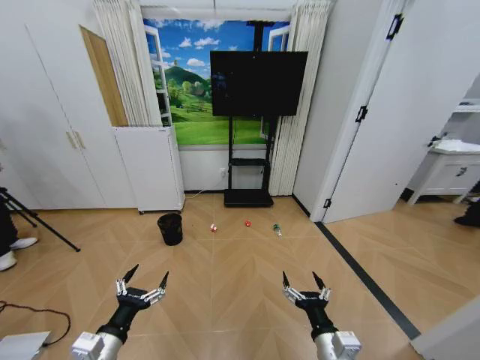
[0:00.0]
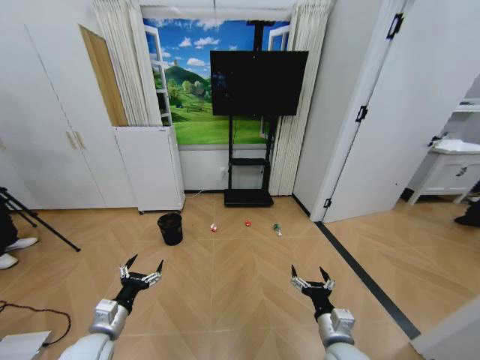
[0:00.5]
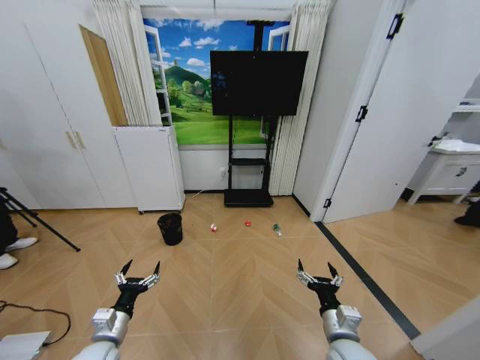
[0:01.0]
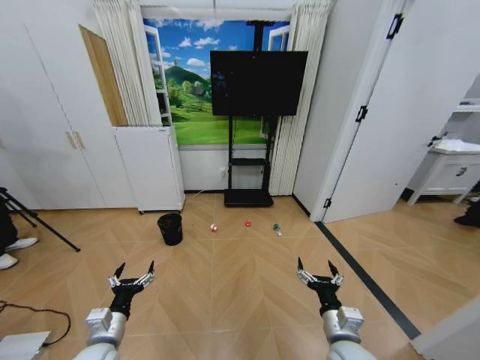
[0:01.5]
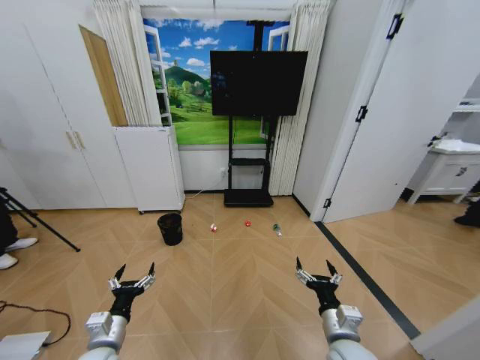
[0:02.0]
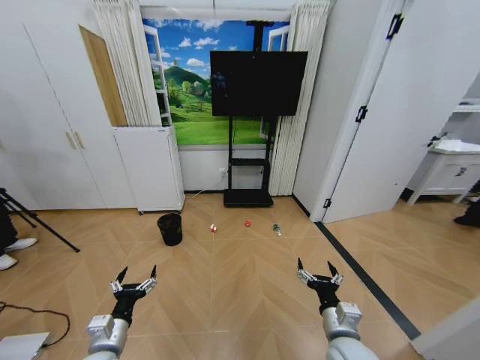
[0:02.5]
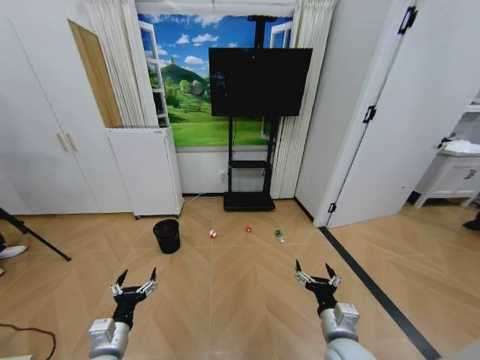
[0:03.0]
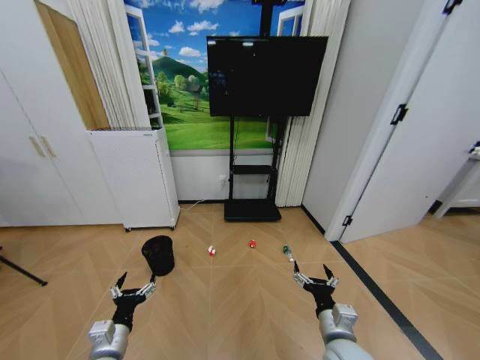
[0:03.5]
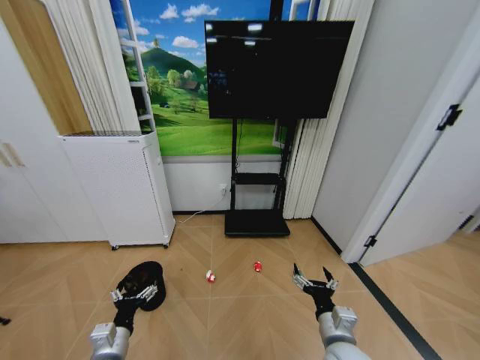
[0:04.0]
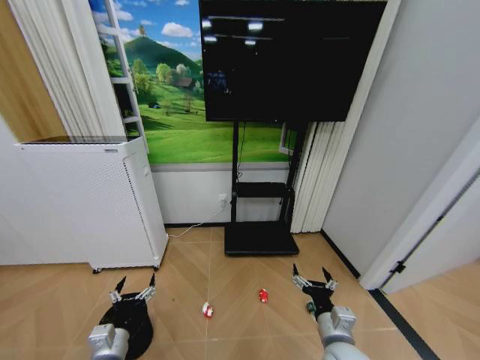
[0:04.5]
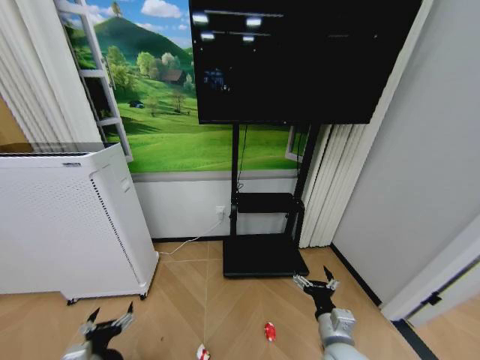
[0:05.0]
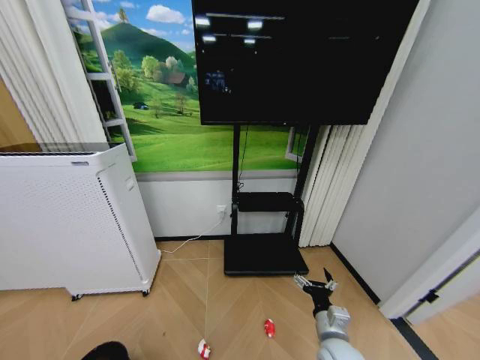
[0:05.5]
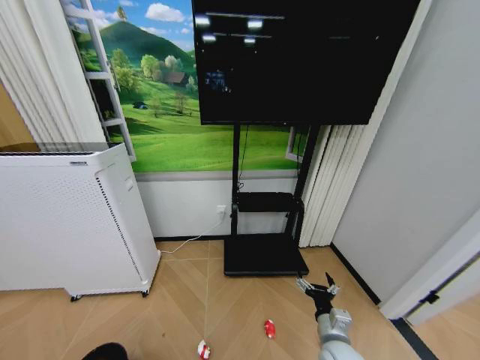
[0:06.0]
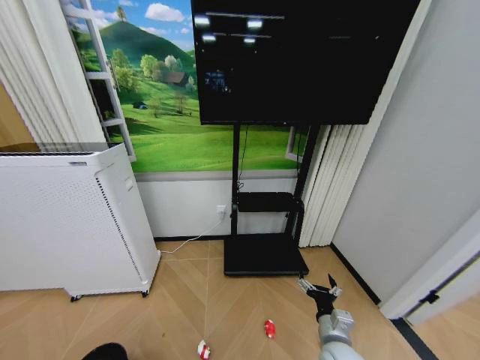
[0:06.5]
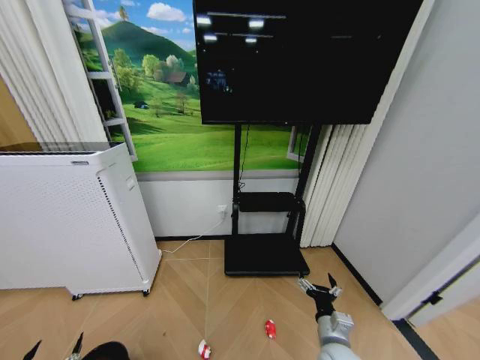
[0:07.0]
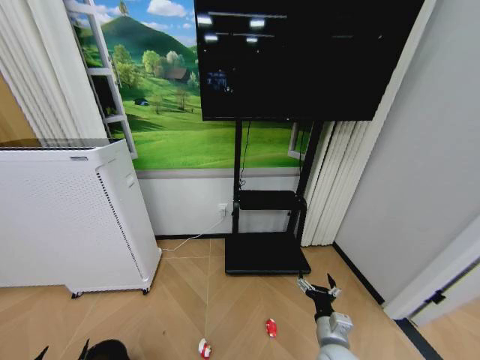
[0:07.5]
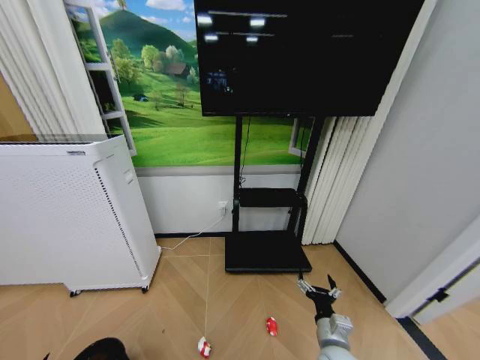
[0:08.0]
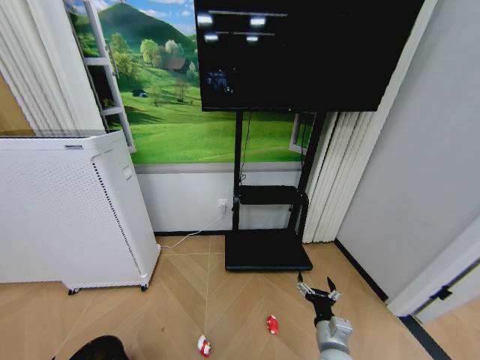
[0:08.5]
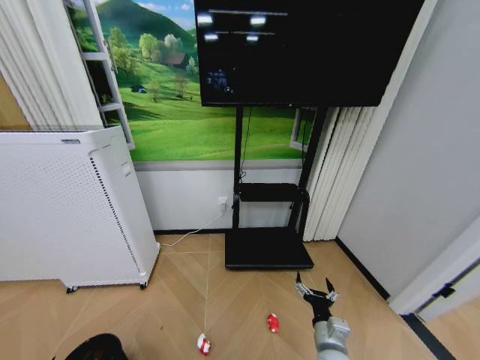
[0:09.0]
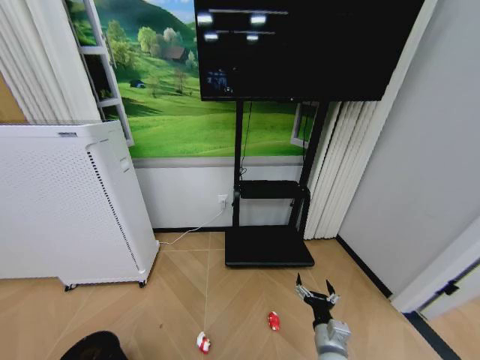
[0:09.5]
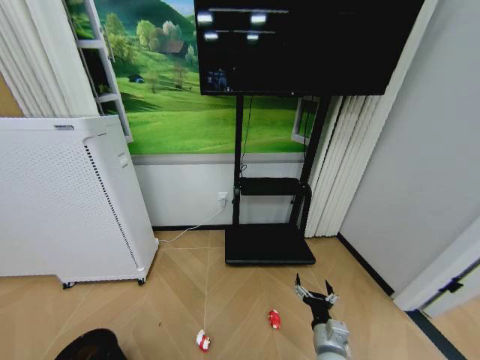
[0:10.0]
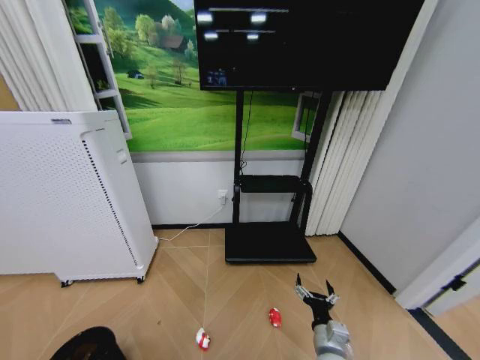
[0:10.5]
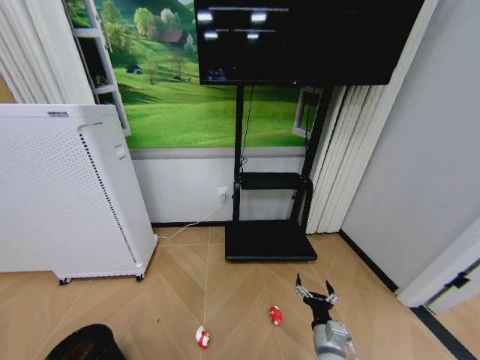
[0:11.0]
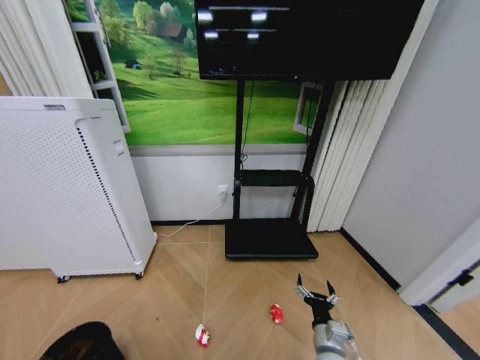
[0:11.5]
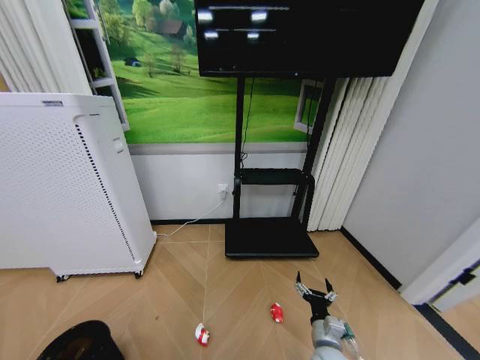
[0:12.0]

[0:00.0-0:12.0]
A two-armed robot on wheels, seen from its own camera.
Task of the whole recording: Pick up the trash bin and place the garbage on the floor into it.
0:04.0 to 0:06.0: The left gripper is displaced backward, to the left and downward by some 35 cm; the right gripper is displaced downward by roughly 5 cm.
0:06.0 to 0:08.0: The left gripper moves forward, upward and to the right, approximately 10 cm.
0:10.0 to 0:12.0: The left gripper travels upward by some 15 cm.

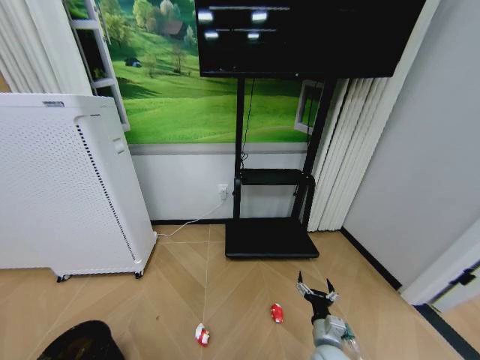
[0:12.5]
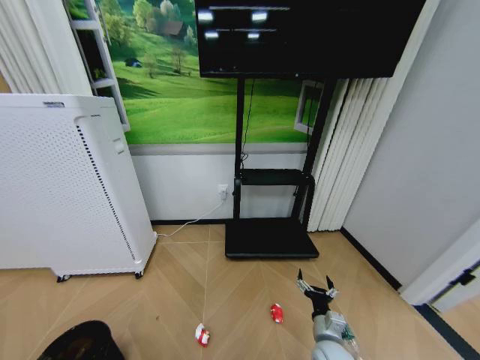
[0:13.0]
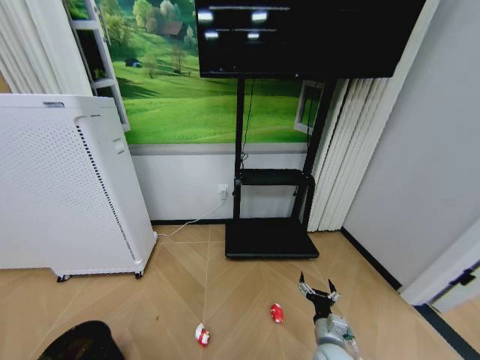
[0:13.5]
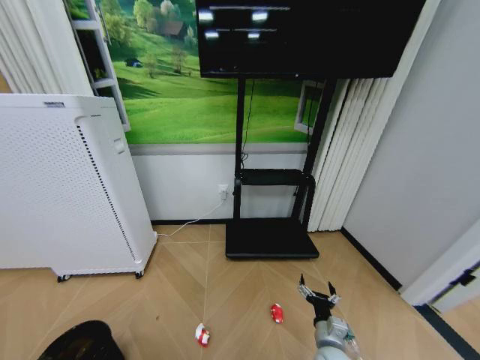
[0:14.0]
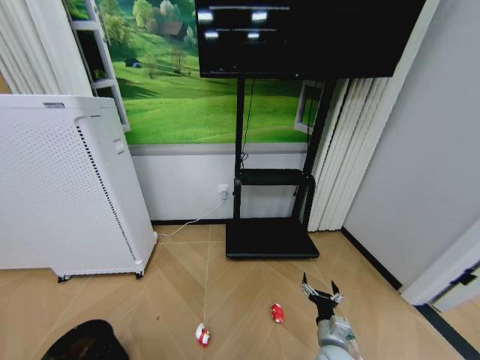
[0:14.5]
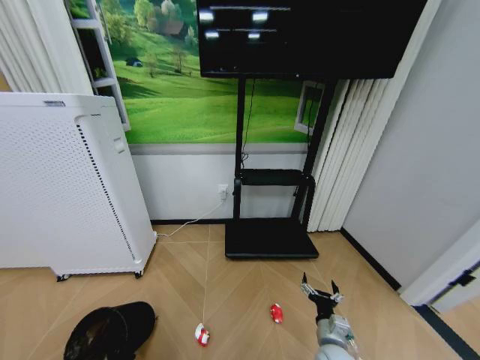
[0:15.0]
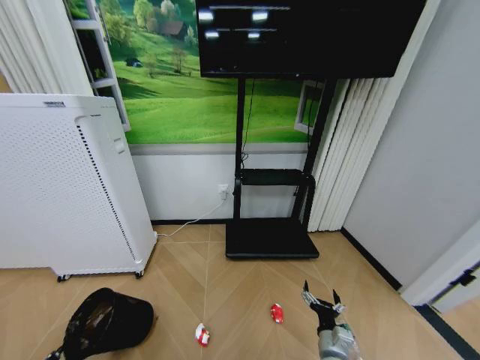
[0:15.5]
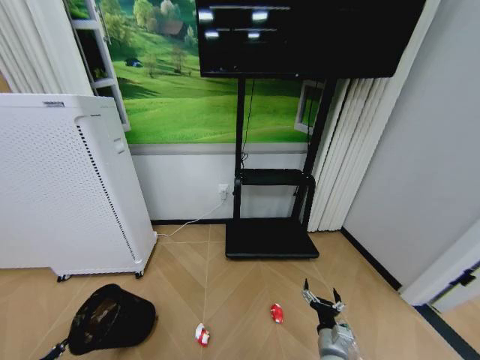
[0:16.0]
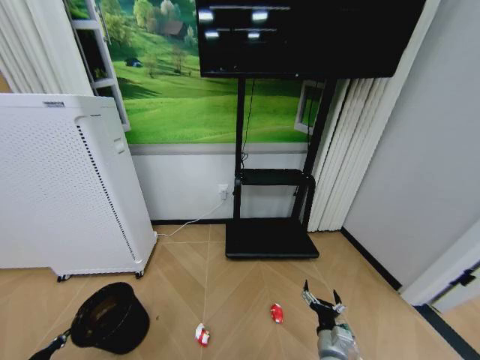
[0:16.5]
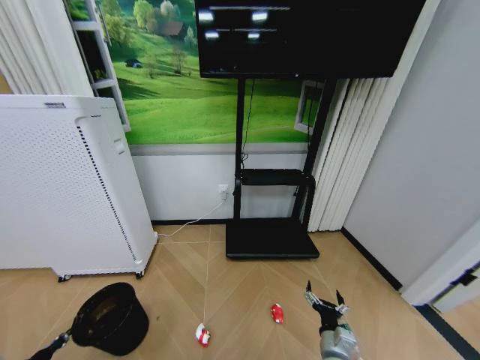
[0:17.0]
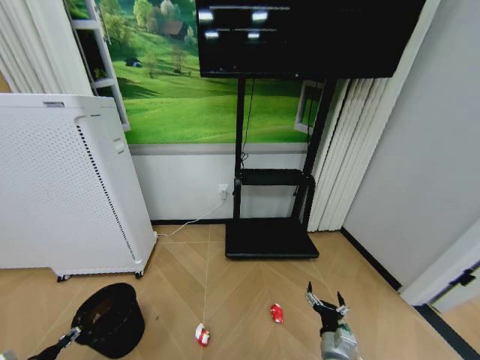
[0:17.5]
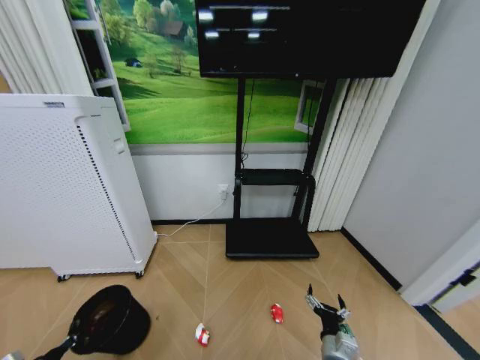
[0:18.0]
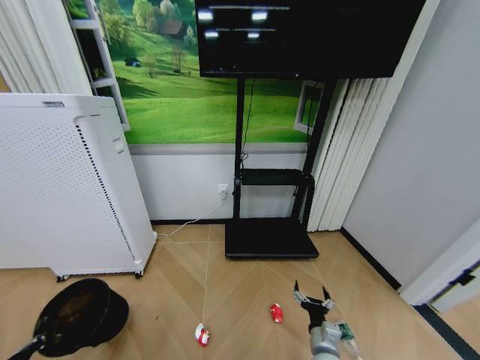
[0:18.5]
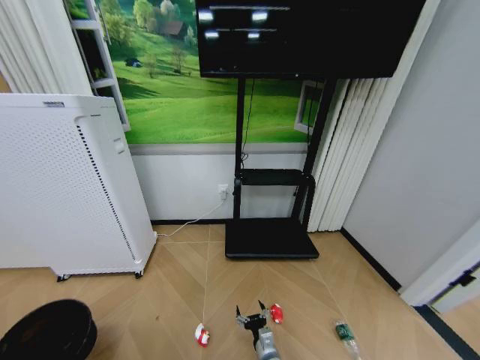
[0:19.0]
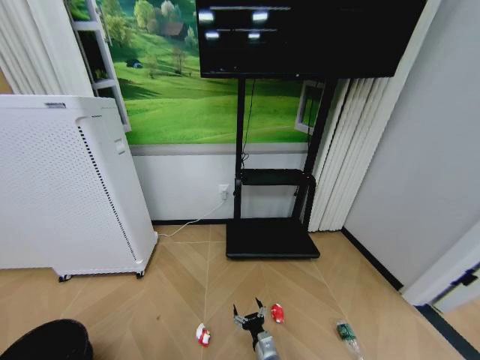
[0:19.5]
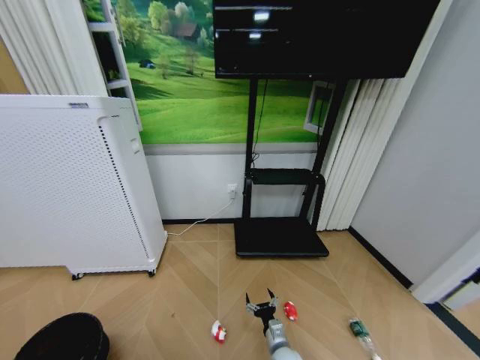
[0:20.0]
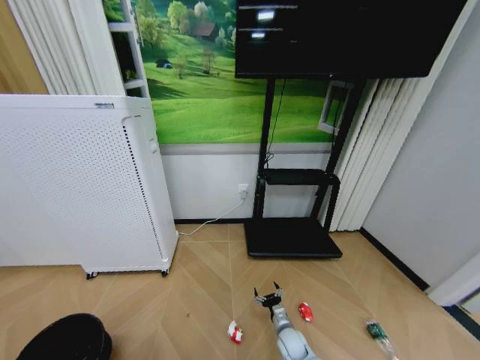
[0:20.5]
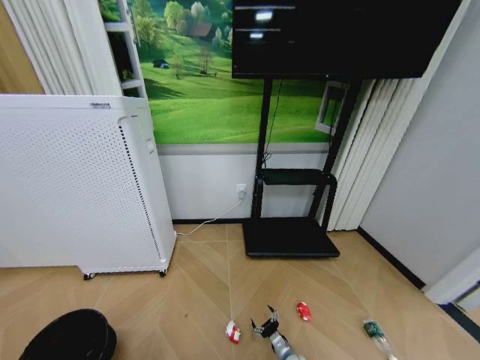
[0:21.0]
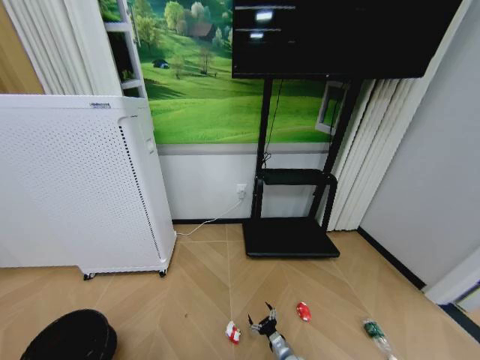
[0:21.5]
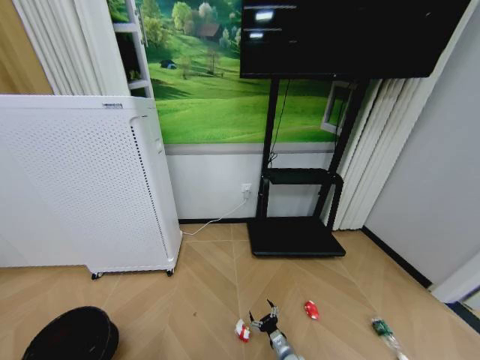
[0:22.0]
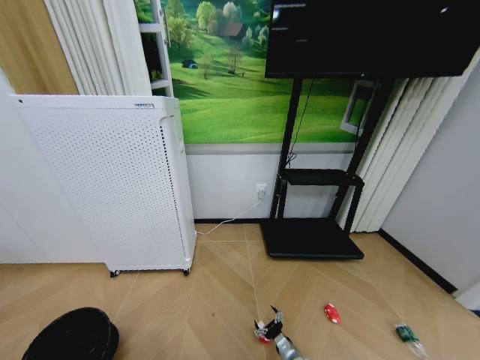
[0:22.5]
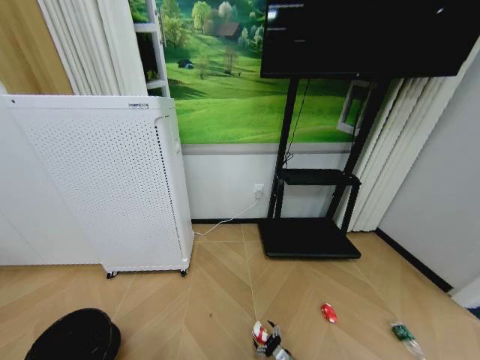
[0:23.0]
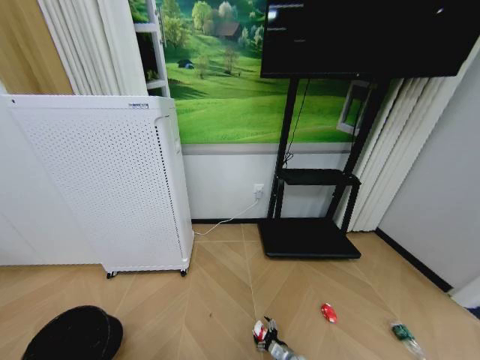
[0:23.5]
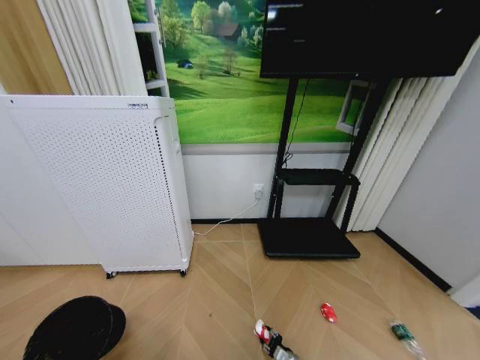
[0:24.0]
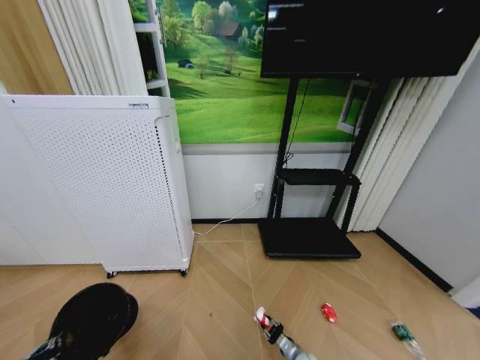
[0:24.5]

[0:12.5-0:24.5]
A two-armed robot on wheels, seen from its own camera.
Task of the whole recording: Pick up the trash bin and place the garbage on the floor into it.
0:12.5 to 0:14.5: The left gripper moves forward, some 15 cm.
0:14.5 to 0:16.5: The left gripper goes approximately 5 cm forward, and closes up.
0:16.5 to 0:18.5: The left gripper opens, then closes once more.
0:18.5 to 0:20.5: The right gripper heads downward, forward and to the left, covering roughly 15 cm. The left gripper heads backward, covering approximately 10 cm.
0:20.5 to 0:22.5: The right gripper heads backward, covering some 5 cm.
0:22.5 to 0:24.5: The right gripper ends up some 5 cm from where it was, and closes up. The left gripper goes approximately 5 cm forward.

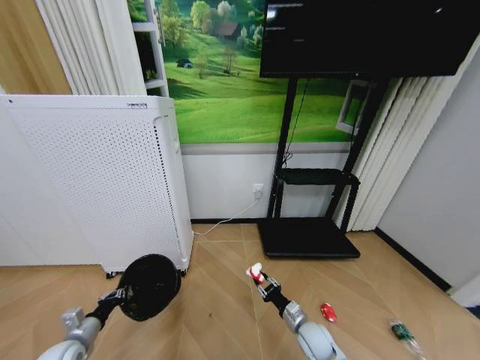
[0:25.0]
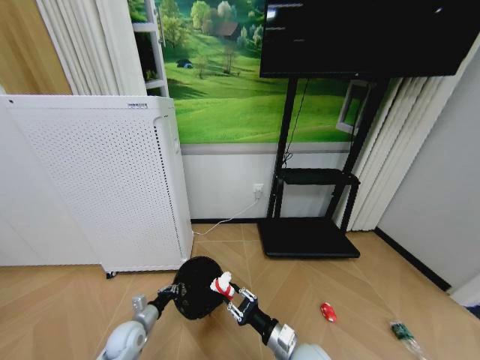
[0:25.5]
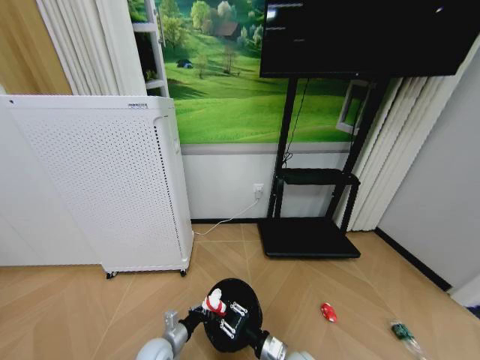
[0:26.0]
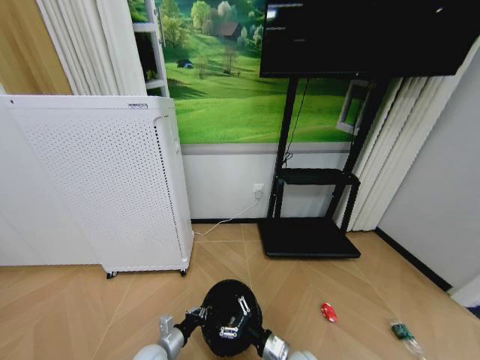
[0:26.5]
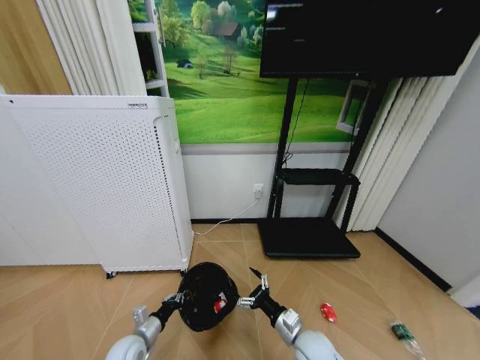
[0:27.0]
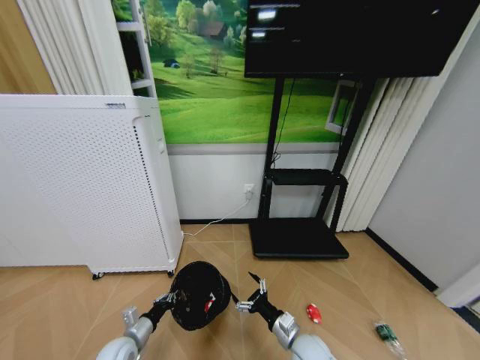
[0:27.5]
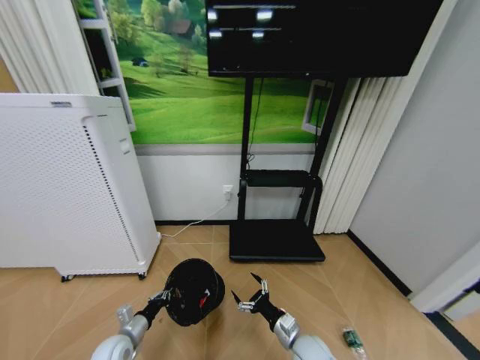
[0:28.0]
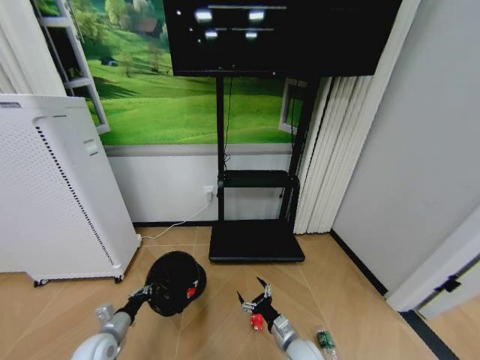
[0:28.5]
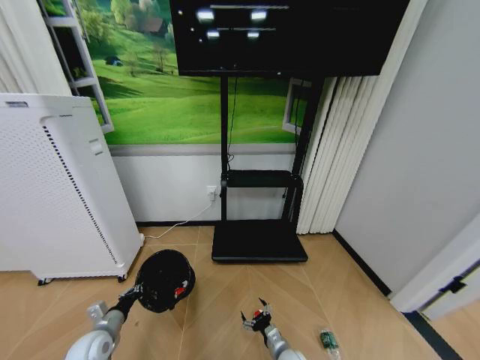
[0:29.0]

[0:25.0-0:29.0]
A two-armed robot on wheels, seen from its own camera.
Task of the whole recording: Pick up the trash bin and place the garbage on the floor into it.
0:25.0 to 0:27.0: The left gripper moves to the right, approximately 20 cm. The right gripper heads backward, upward and to the left, covering approximately 10 cm, and opens its fingers.
0:27.0 to 0:29.0: The right gripper moves downward, about 15 cm. Meanwhile the left gripper moves to the left, about 15 cm.
